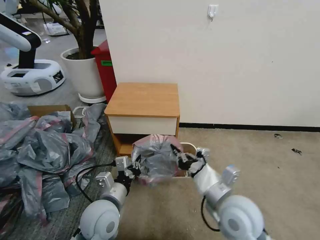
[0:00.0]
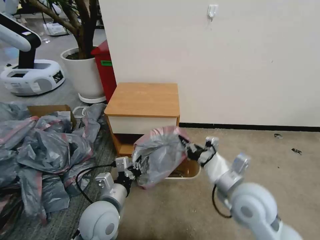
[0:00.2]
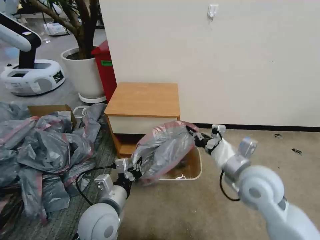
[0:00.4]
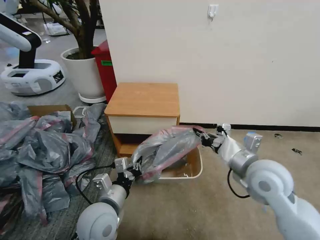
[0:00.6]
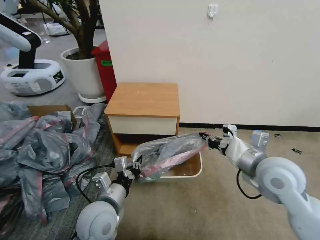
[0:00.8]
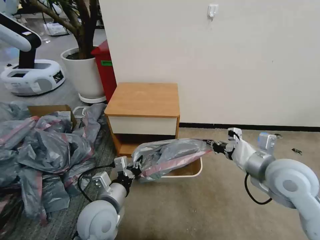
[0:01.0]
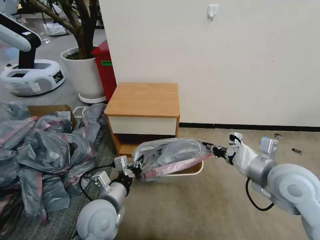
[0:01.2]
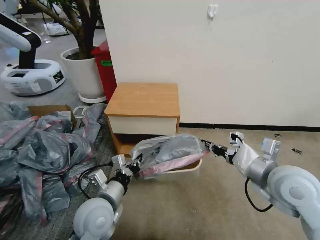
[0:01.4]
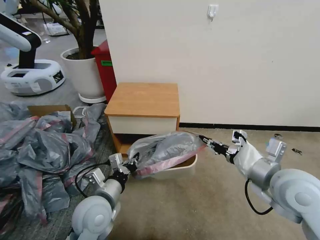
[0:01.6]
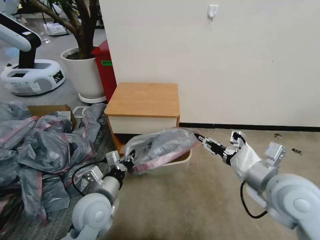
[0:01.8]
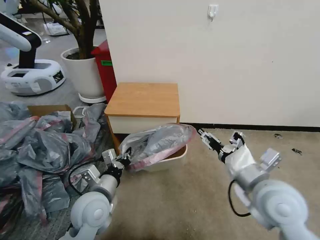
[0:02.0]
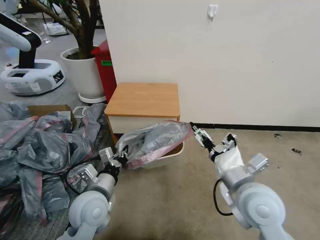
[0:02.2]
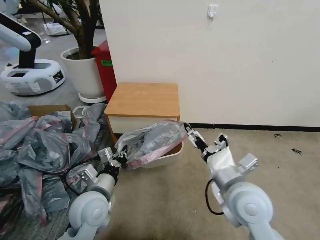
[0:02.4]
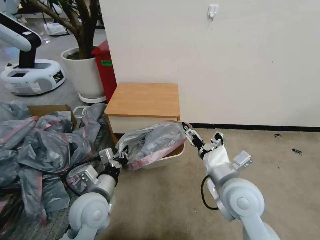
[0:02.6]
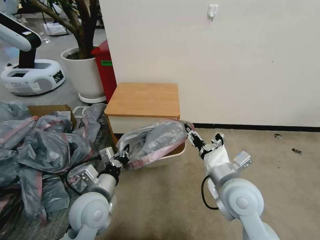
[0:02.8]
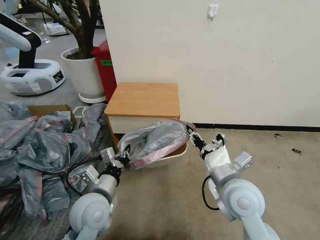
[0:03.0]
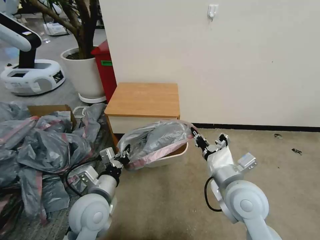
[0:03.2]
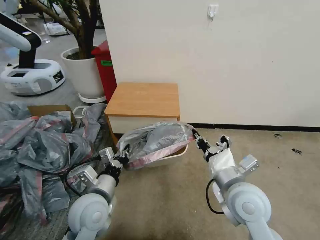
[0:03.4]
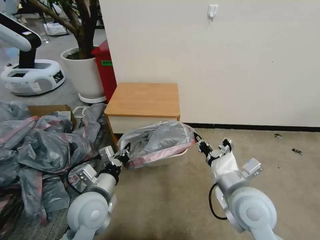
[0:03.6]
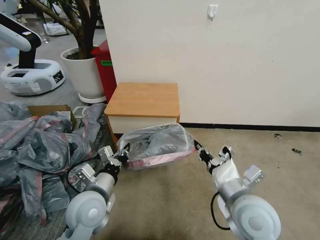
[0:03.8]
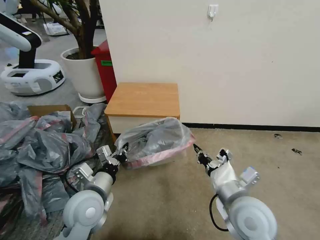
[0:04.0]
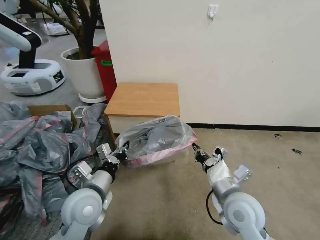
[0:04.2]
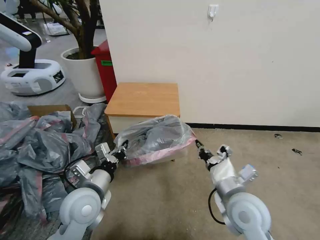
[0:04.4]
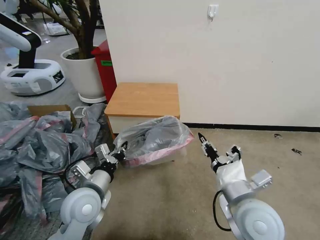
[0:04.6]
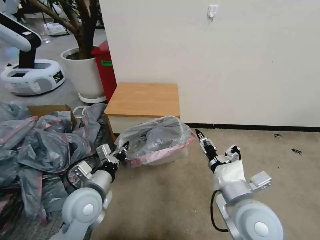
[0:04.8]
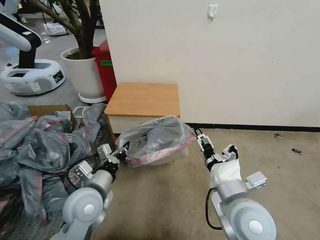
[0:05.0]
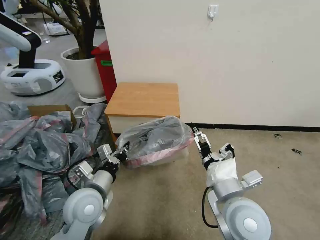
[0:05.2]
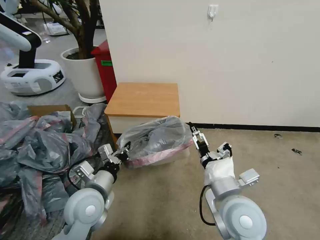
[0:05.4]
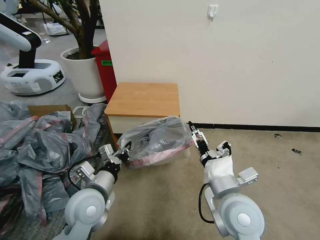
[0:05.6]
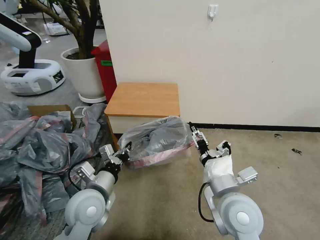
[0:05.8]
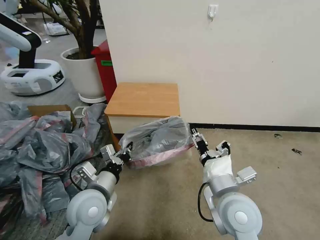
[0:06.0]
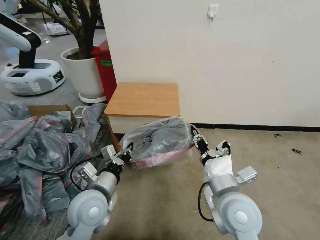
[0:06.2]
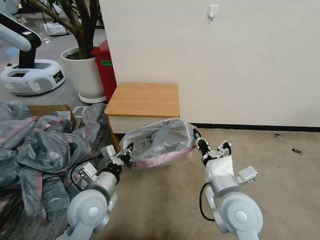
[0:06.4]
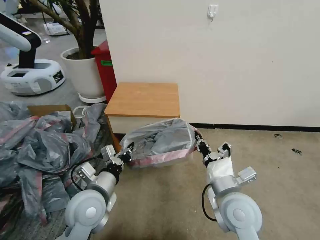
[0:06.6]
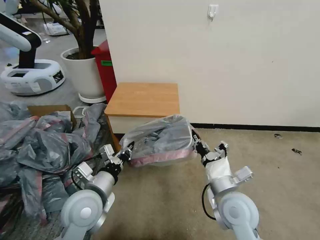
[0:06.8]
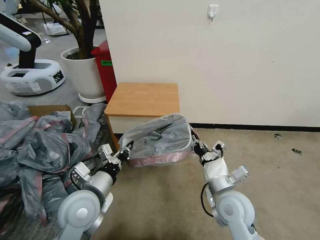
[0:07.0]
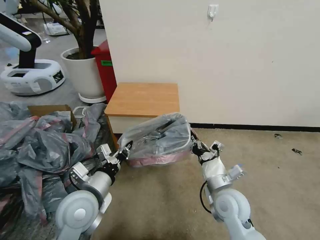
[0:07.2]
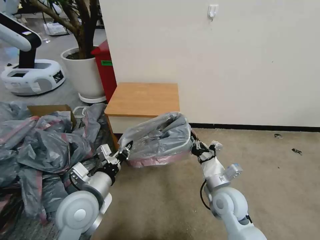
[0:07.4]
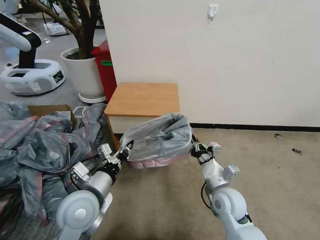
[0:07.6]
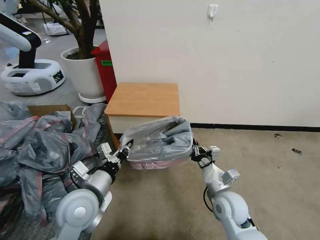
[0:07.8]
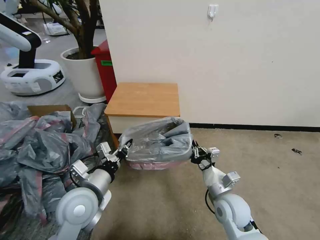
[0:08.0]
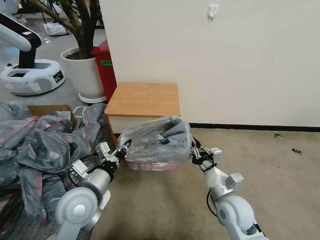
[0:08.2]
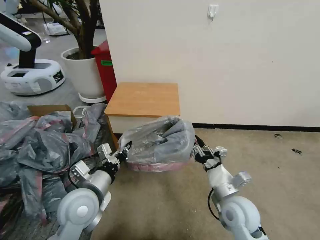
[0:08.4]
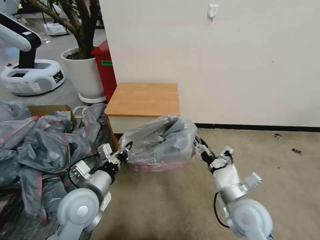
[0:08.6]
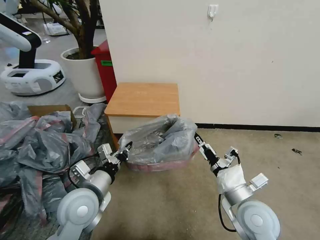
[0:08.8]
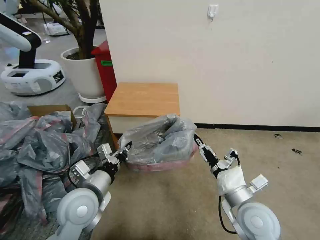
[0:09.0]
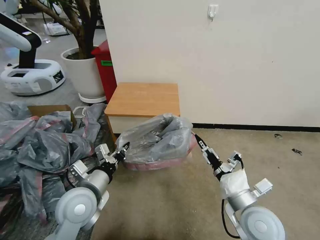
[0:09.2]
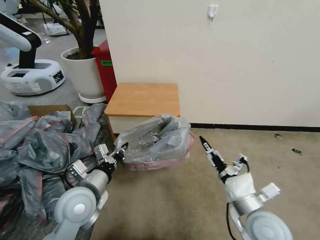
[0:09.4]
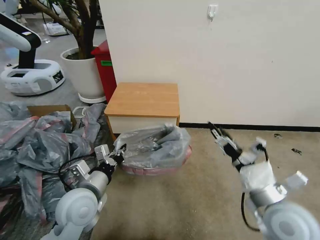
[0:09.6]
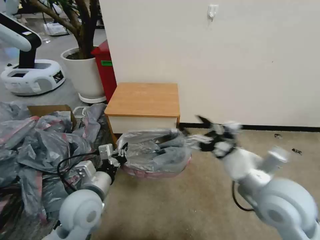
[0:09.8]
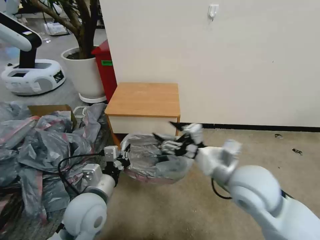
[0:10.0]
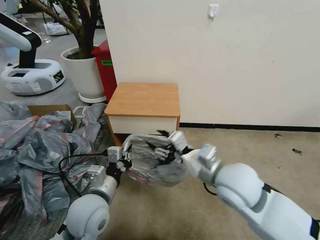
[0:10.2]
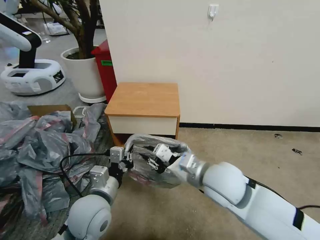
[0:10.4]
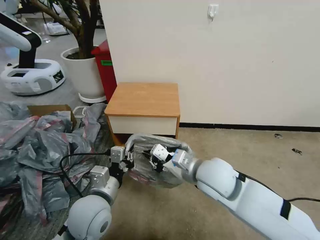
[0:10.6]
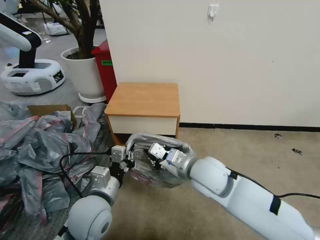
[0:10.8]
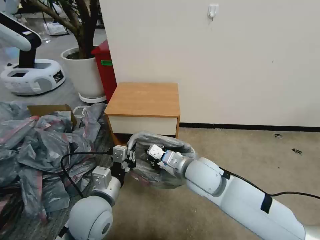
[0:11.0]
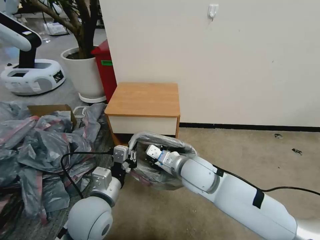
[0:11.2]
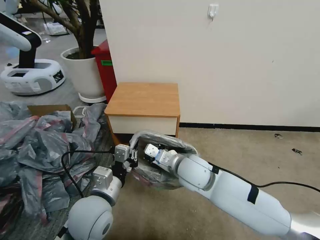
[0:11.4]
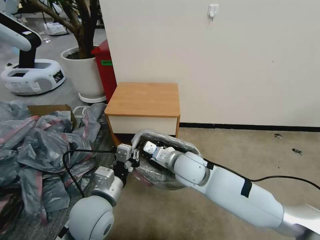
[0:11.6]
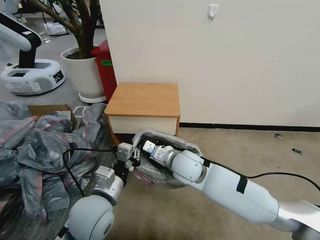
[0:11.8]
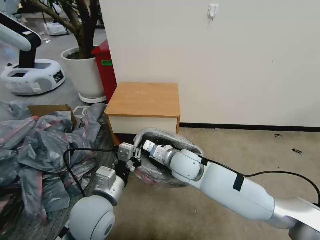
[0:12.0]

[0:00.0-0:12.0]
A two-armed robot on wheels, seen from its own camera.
Task of the whole recording: Pick up the garbage bag from the table and place it over the trash can.
0.0 to 1.6 s: The right gripper heads to the right and upward, covering roughly 15 cm.
1.6 to 3.0 s: The right gripper shifts some 10 cm to the left and downward, and opens and closes again.
3.0 to 4.4 s: The grippers move only a little.
4.4 to 6.0 s: The right gripper opens.
6.0 to 7.6 s: The right gripper goes about 15 cm downward and forward, and closes its fingers.
7.6 to 9.0 s: The right gripper heads backward and upward, covering about 10 cm, and opens its fingers.
9.0 to 10.4 s: The right gripper is displaced upward, to the left and forward by approximately 15 cm, and closes up.
10.4 to 12.0 s: The right gripper heads forward, downward and to the left, covering approximately 15 cm.

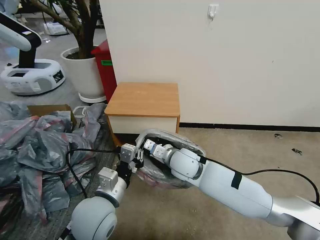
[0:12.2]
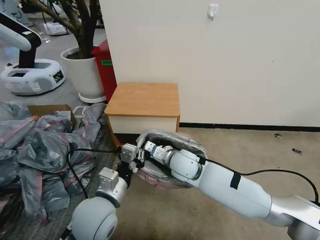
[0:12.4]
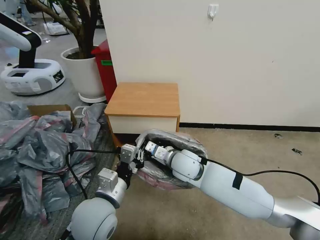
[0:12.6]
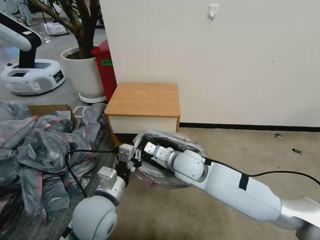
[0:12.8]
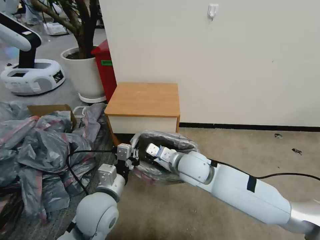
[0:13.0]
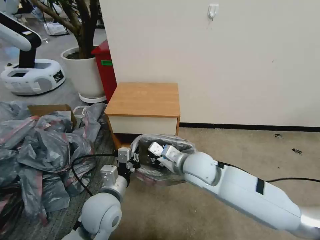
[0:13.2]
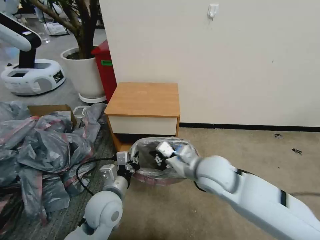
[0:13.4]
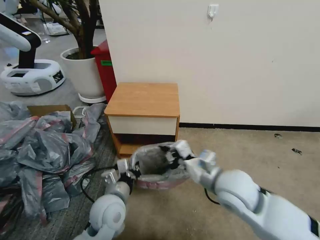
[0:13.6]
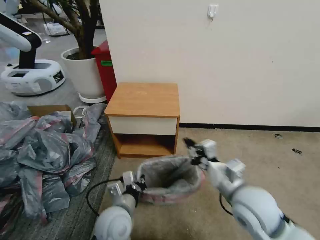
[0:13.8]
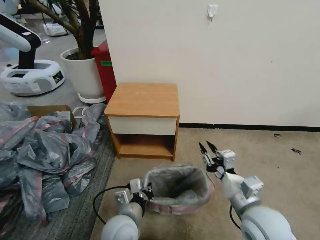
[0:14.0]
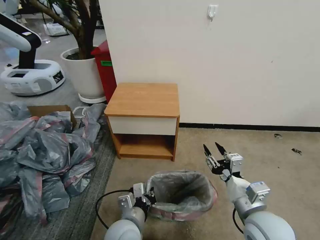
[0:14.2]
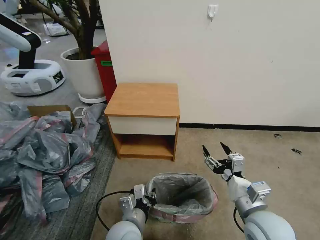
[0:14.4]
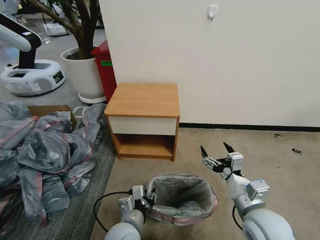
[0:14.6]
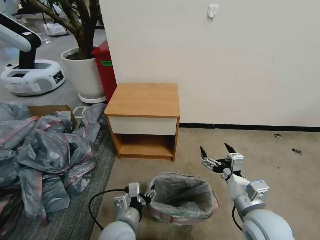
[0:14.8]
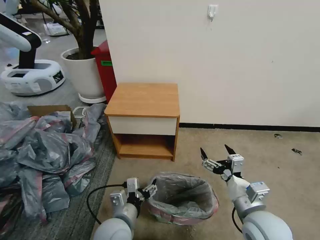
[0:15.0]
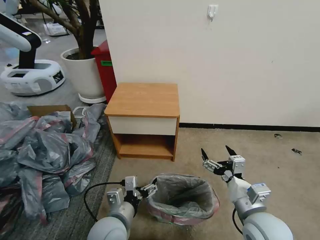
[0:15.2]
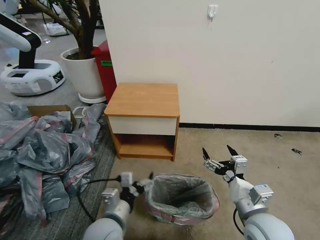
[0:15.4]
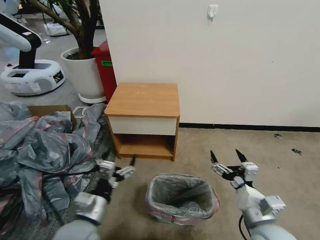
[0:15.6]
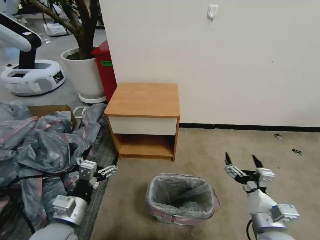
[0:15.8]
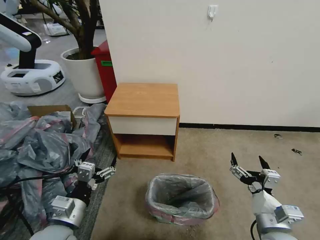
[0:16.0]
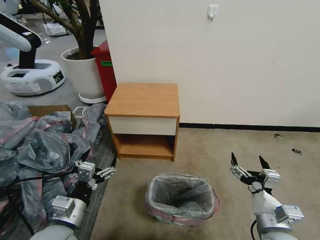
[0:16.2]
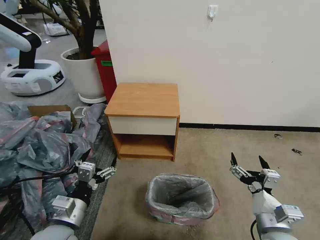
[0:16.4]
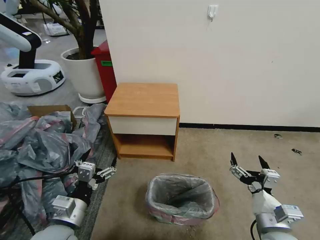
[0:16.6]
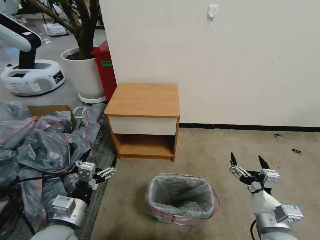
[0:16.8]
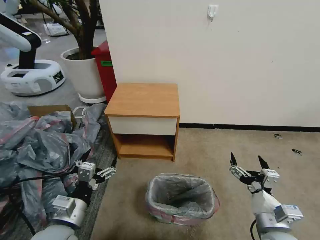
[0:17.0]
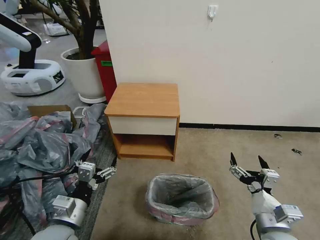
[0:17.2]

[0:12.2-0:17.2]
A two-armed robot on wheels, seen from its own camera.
Task of the whole recording: Pick up the garbage bag from the table and place it over the trash can.
12.2 to 13.8 s: The right gripper is displaced to the right and backward by approximately 20 cm. The left gripper is displaced downward by some 10 cm.
13.8 to 15.6 s: The right gripper is displaced backward and downward by about 10 cm, and opens its fingers; the left gripper goes approximately 10 cm to the left, and opens.
15.6 to 17.2 s: There are only small adjustments of the grippers.

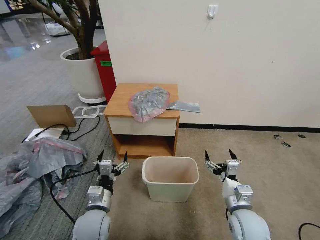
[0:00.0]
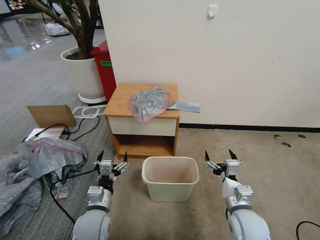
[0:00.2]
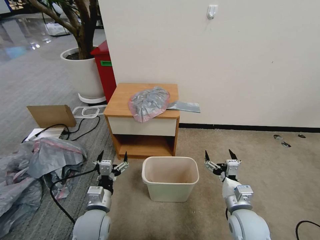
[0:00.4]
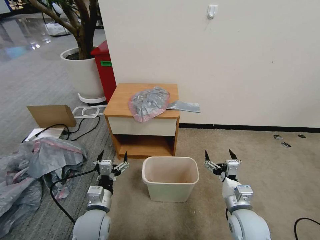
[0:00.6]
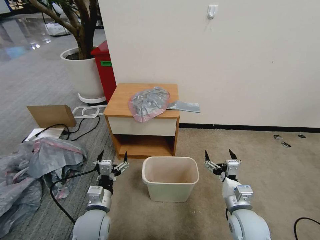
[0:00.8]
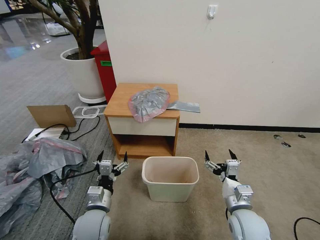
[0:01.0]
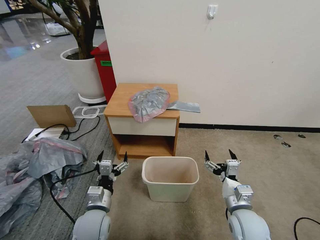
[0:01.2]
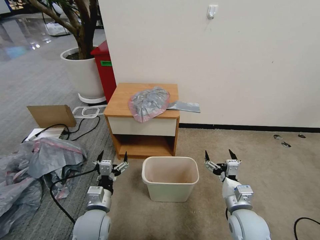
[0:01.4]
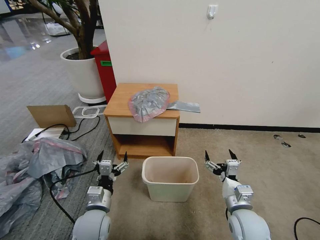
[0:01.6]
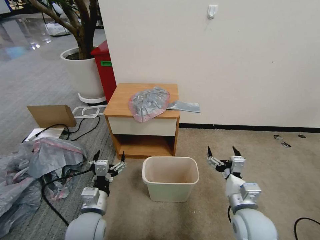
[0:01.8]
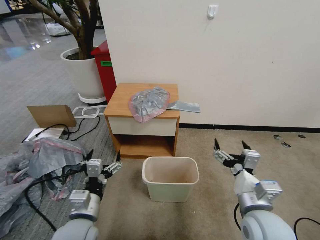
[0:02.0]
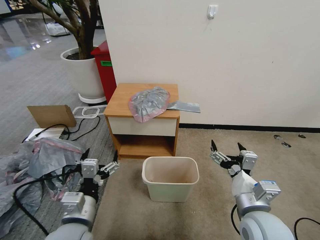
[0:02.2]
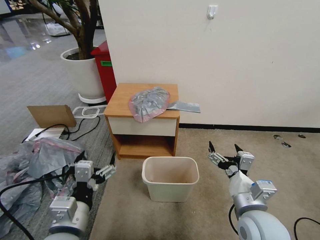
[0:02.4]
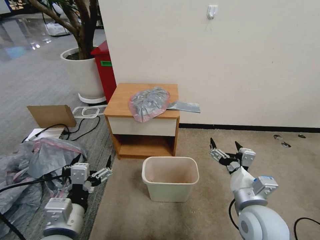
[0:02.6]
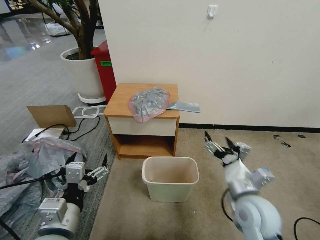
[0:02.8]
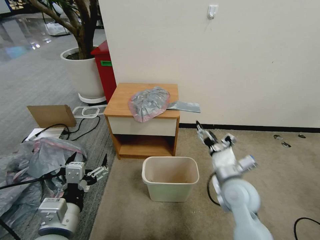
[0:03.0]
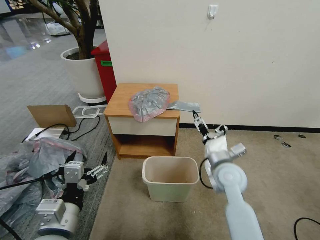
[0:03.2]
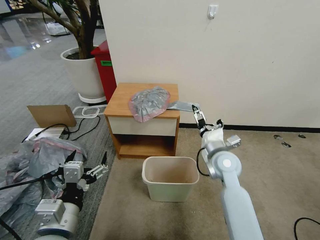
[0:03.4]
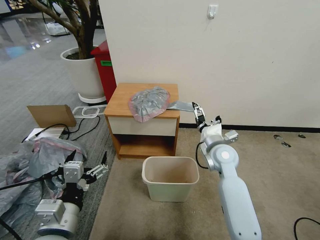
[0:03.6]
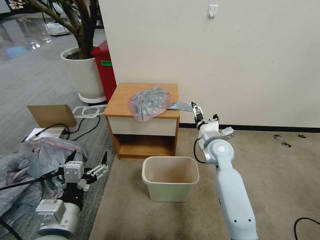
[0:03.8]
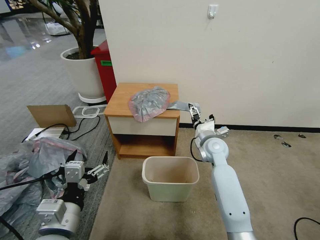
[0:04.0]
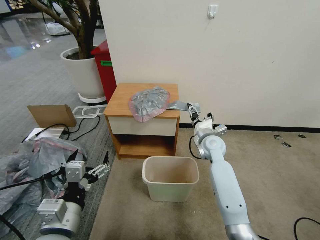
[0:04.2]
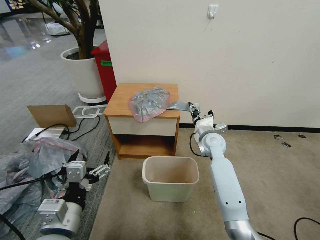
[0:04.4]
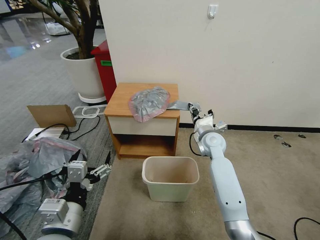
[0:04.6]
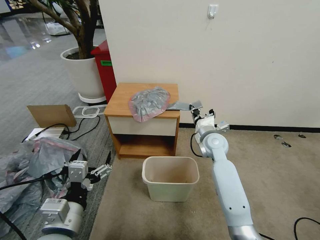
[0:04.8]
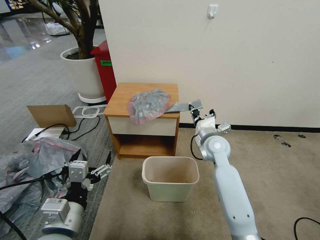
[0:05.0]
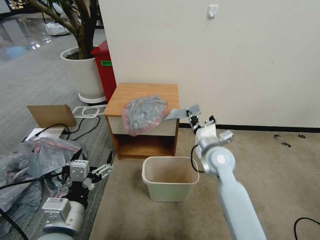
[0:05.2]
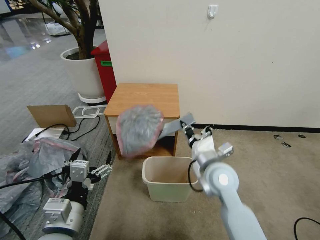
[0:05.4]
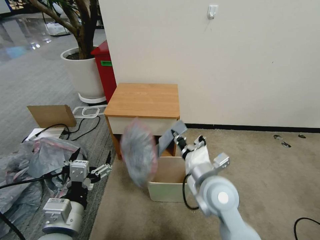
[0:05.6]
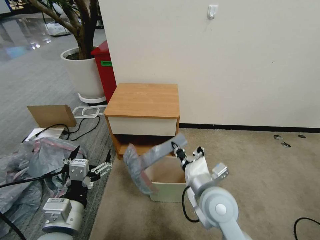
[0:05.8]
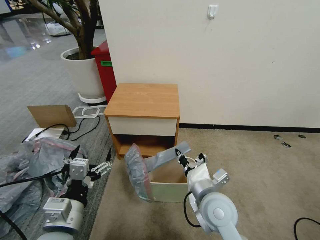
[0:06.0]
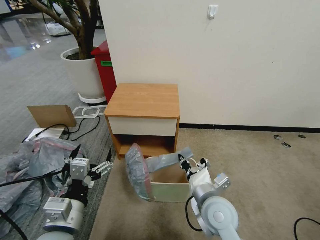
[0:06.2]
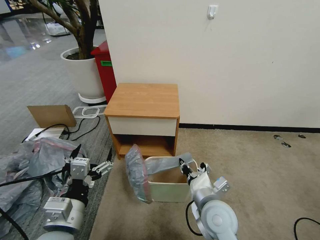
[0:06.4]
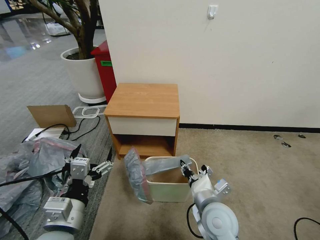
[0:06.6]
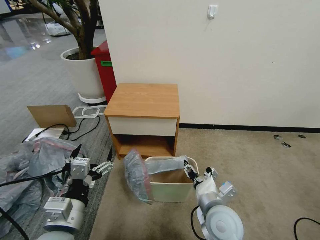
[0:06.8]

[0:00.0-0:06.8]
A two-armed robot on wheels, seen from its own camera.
Task of the whole recording: Pick up the garbage bag from the table and place it over the trash can.
1.4 to 2.8 s: The right gripper is displaced upward by roughly 10 cm; the left gripper is displaced upward and backward by some 15 cm.
2.8 to 4.0 s: The right gripper moves forward, roughly 25 cm.
4.0 to 5.4 s: The right gripper heads backward, covering approximately 15 cm, and closes up.
5.4 to 6.8 s: The right gripper travels backward and downward by some 15 cm, and opens its fingers.
